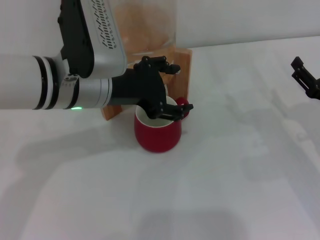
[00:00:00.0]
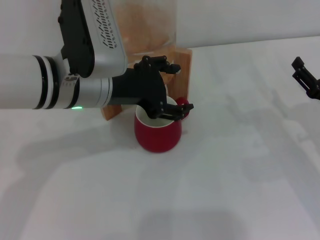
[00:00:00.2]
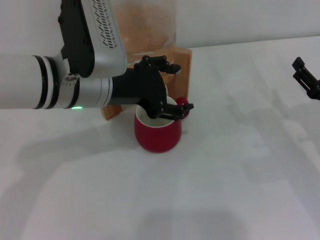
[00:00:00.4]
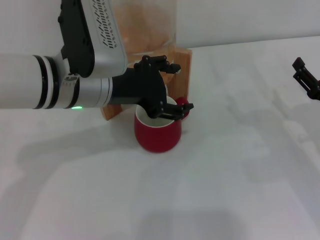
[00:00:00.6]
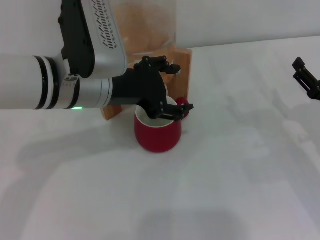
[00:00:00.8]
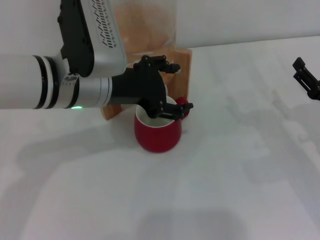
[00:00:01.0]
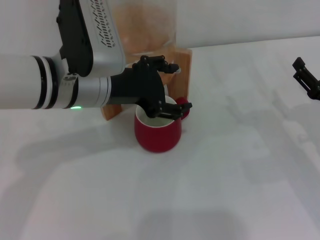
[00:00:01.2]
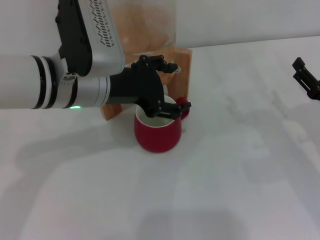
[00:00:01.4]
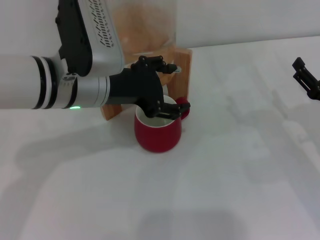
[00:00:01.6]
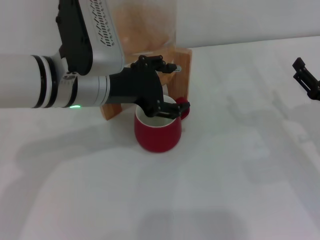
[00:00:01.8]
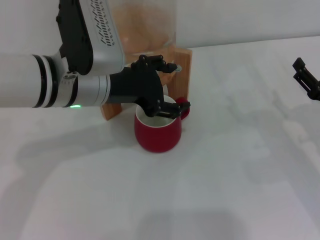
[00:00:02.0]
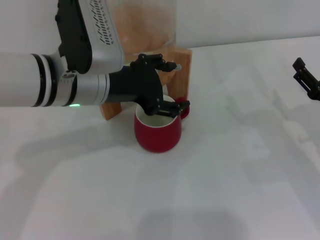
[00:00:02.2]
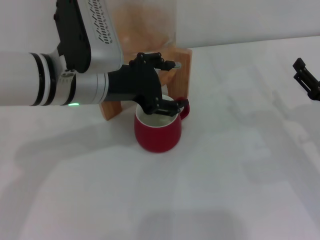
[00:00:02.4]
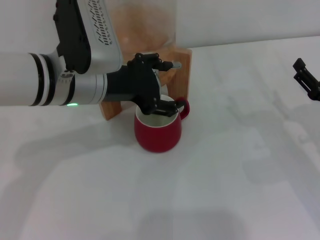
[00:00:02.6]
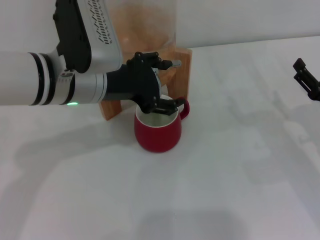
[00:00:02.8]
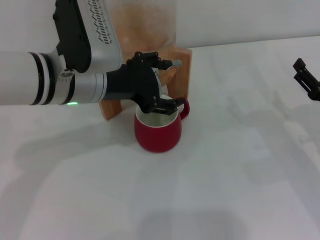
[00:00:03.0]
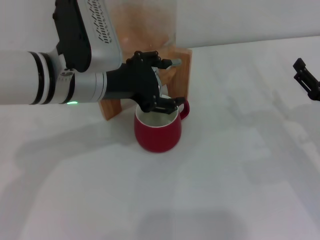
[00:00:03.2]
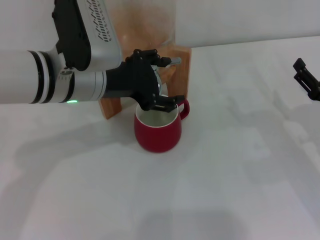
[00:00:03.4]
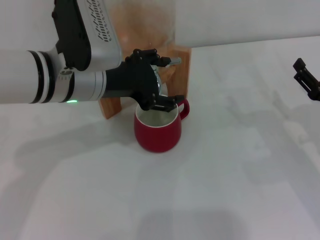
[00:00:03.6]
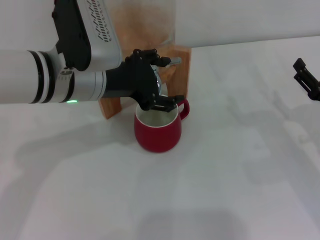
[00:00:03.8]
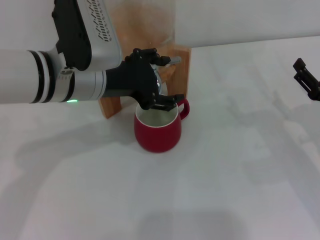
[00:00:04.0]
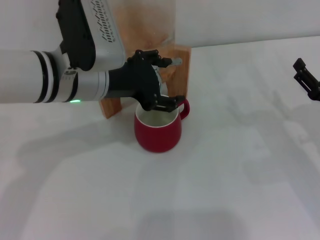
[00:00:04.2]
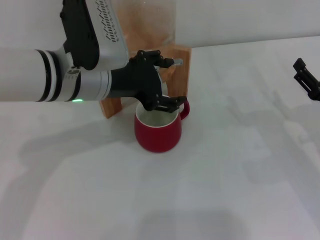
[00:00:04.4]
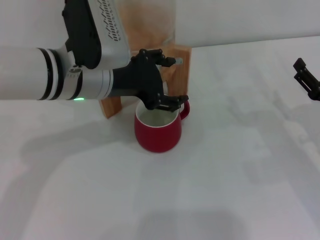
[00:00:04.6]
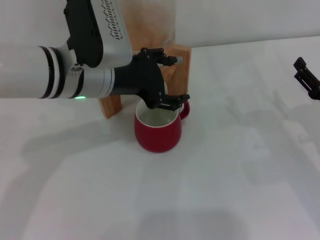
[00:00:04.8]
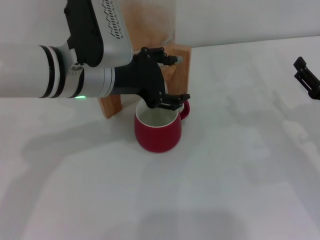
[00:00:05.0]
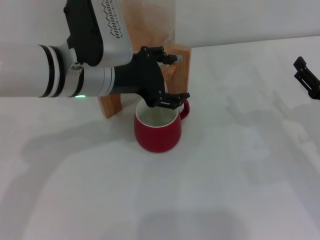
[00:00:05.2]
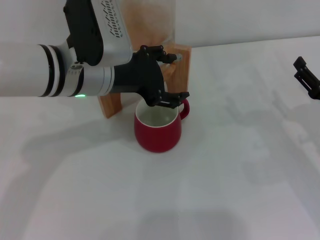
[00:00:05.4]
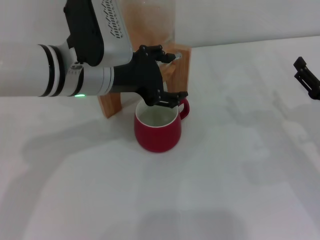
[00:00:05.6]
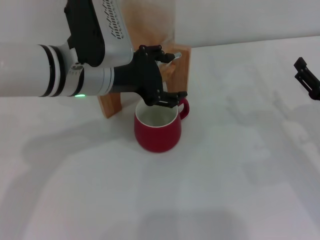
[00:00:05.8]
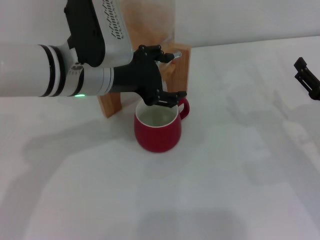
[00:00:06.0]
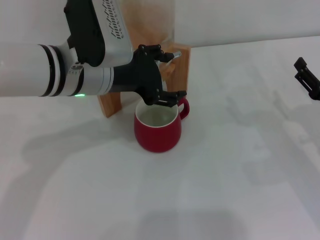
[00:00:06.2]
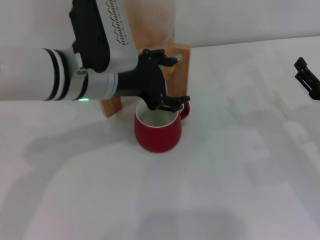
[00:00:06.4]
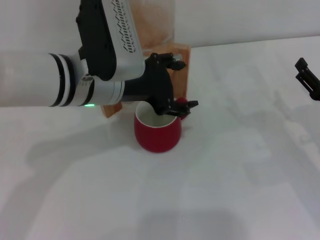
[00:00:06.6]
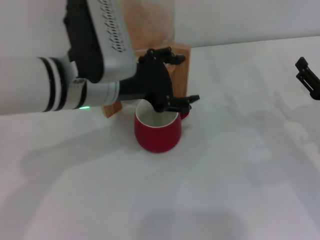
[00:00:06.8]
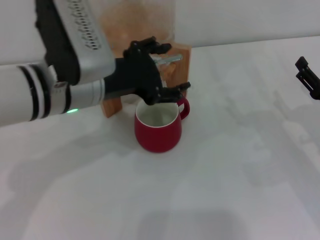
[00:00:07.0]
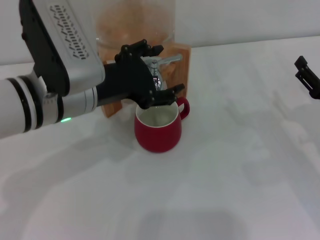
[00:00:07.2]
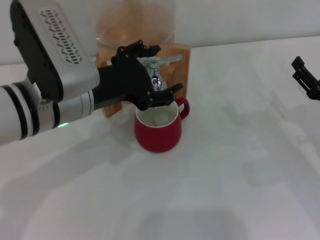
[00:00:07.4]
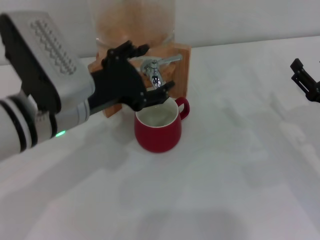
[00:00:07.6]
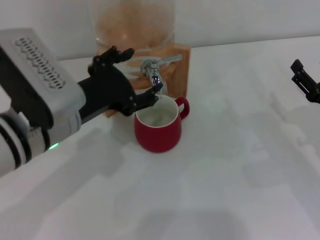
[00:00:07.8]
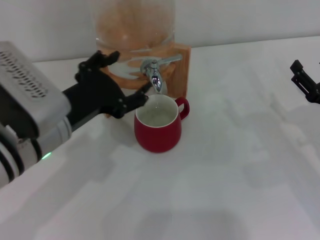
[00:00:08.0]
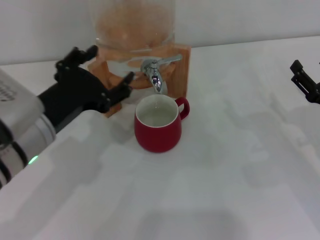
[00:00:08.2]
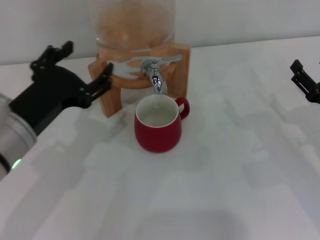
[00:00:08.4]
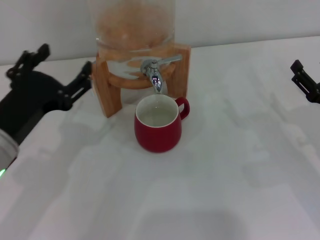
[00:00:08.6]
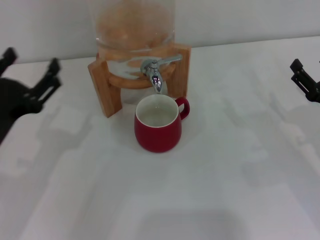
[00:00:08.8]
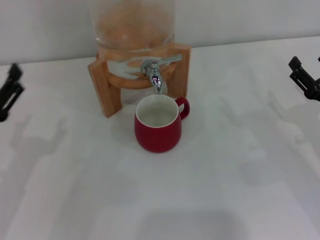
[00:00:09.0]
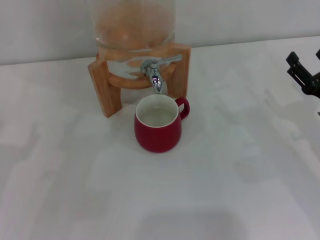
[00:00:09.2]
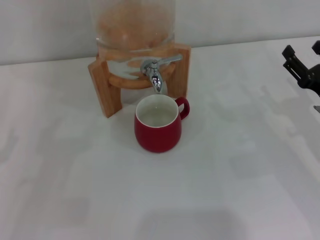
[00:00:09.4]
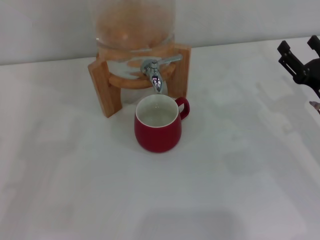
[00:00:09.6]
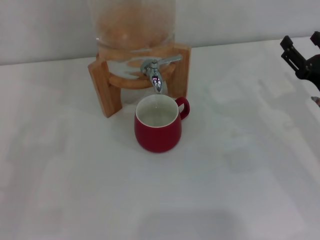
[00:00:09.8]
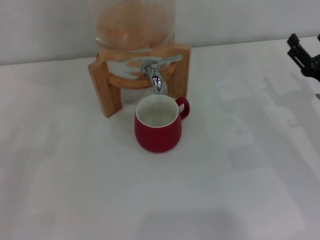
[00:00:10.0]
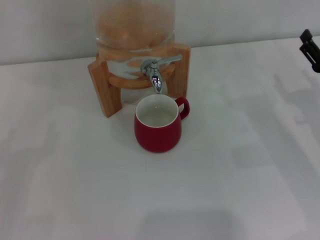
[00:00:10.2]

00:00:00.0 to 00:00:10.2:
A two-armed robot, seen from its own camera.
Task of the whole recording: the right gripper pick up the red cup and place it horizontally under the faucet, the left gripper turn on the faucet to fill the cup, and then turn off the faucet.
Step, 00:00:00.0 to 00:00:07.0: Close the dispenser valve with the left gripper.
00:00:00.0 to 00:00:04.4: Both grippers stay about where they are.
00:00:04.4 to 00:00:05.8: Neither gripper changes place.
00:00:05.8 to 00:00:07.2: The grippers make only small movements.
00:00:07.2 to 00:00:08.8: The left gripper goes some 15 cm to the left, backward and downward.
00:00:08.8 to 00:00:10.2: The left gripper shifts about 15 cm to the left and downward.

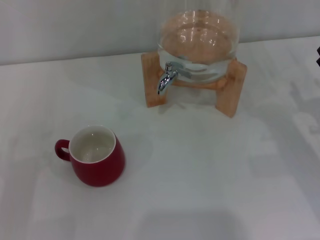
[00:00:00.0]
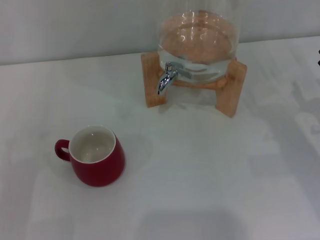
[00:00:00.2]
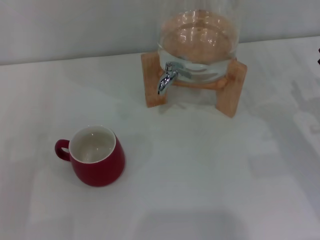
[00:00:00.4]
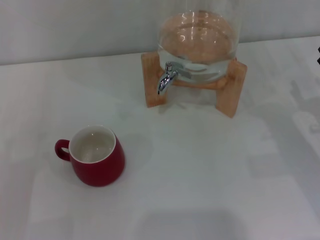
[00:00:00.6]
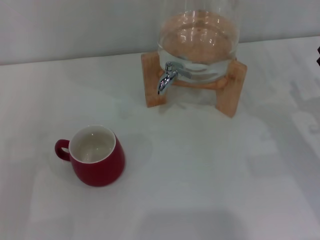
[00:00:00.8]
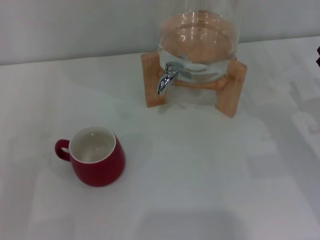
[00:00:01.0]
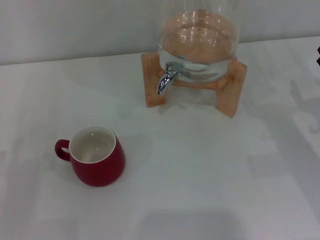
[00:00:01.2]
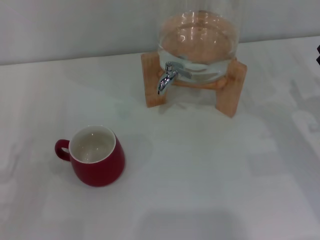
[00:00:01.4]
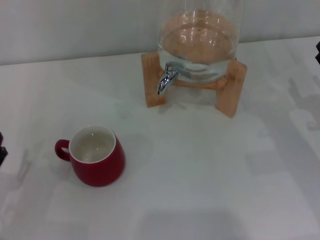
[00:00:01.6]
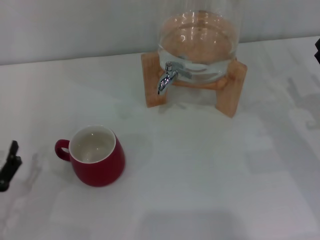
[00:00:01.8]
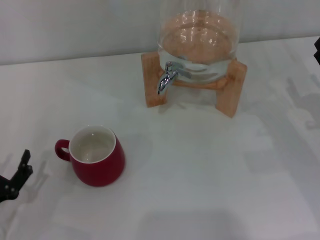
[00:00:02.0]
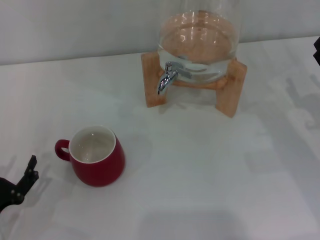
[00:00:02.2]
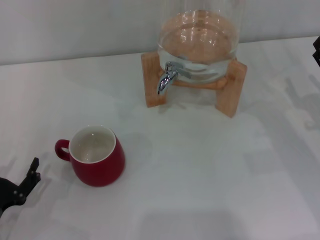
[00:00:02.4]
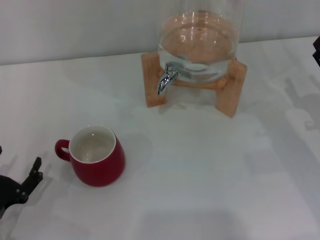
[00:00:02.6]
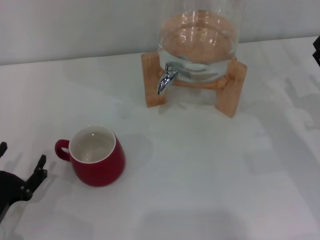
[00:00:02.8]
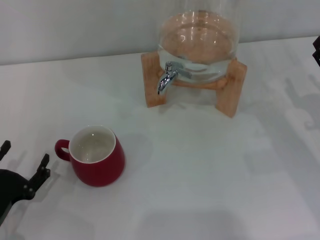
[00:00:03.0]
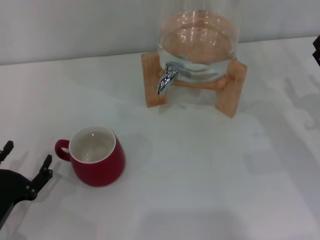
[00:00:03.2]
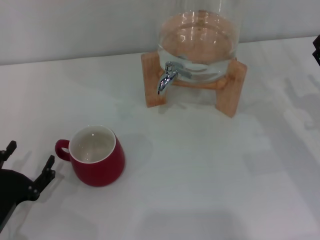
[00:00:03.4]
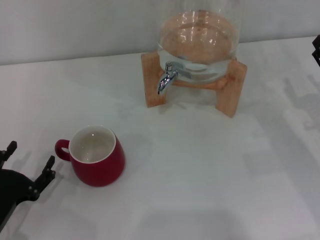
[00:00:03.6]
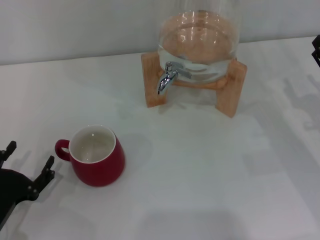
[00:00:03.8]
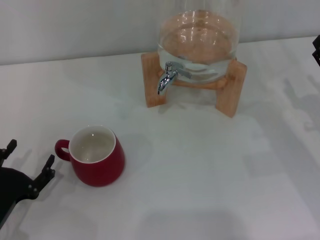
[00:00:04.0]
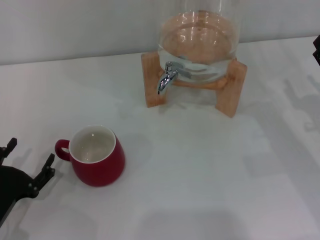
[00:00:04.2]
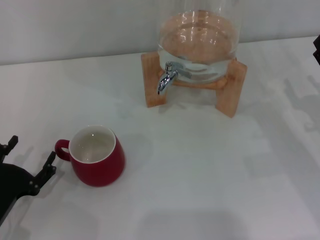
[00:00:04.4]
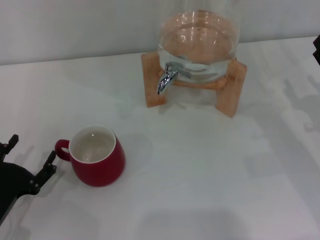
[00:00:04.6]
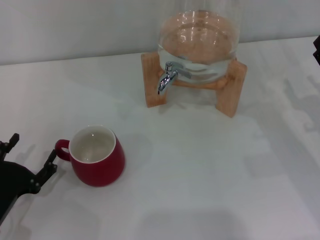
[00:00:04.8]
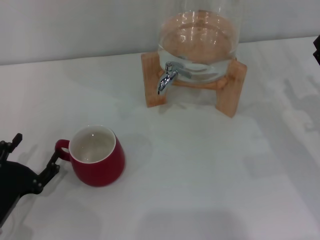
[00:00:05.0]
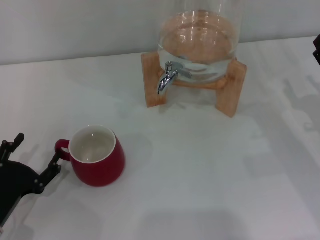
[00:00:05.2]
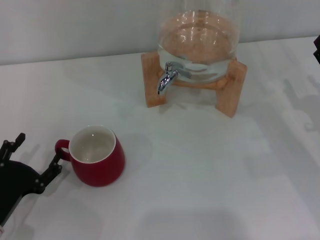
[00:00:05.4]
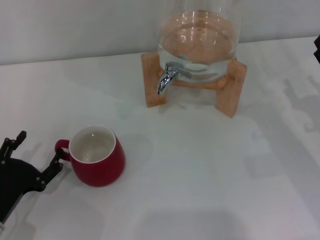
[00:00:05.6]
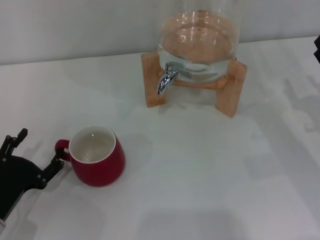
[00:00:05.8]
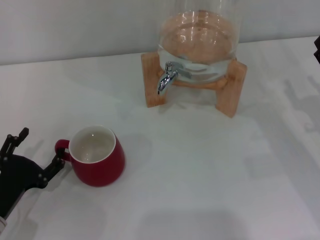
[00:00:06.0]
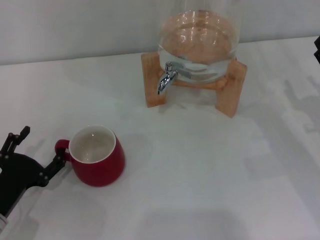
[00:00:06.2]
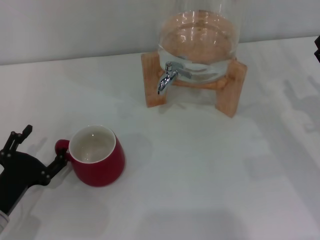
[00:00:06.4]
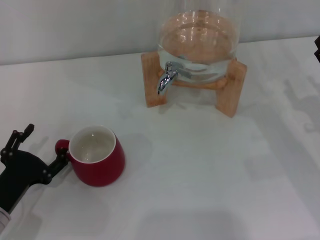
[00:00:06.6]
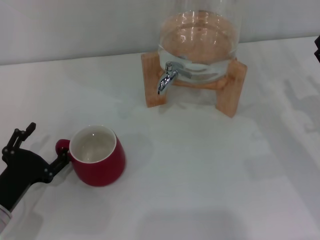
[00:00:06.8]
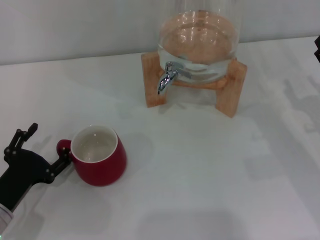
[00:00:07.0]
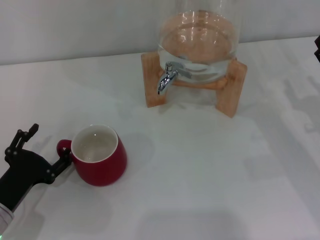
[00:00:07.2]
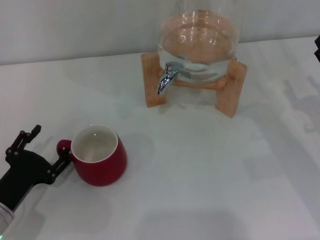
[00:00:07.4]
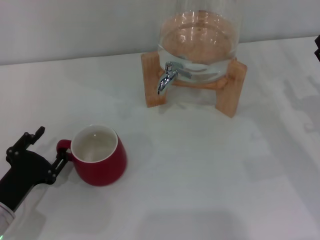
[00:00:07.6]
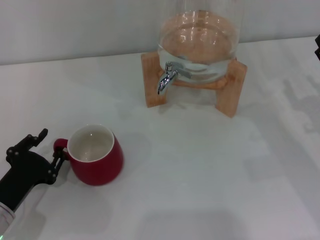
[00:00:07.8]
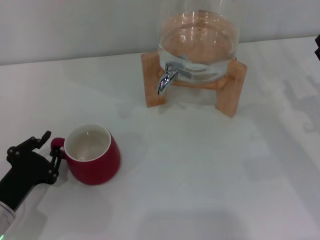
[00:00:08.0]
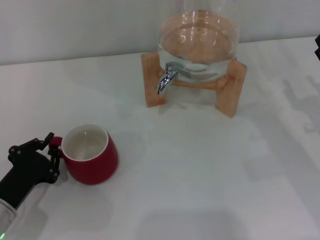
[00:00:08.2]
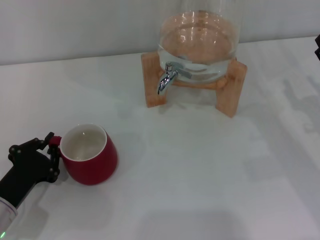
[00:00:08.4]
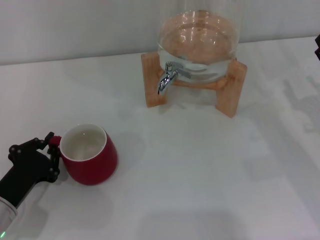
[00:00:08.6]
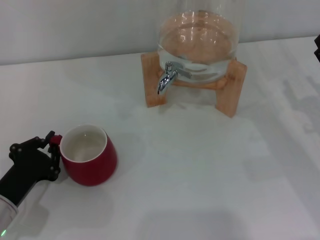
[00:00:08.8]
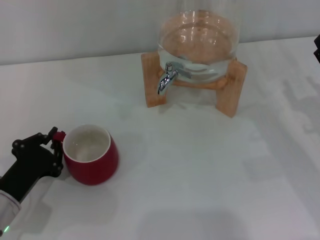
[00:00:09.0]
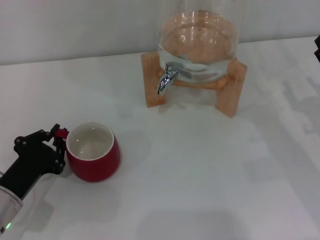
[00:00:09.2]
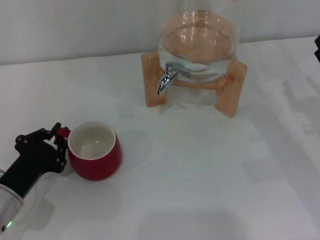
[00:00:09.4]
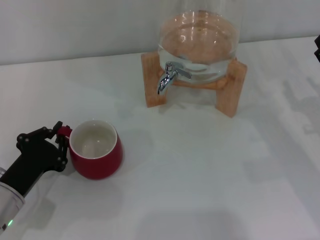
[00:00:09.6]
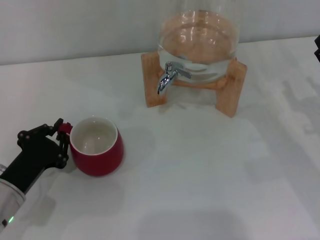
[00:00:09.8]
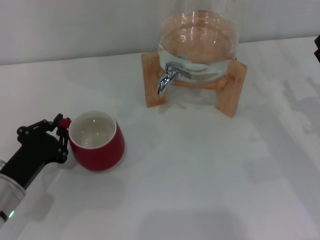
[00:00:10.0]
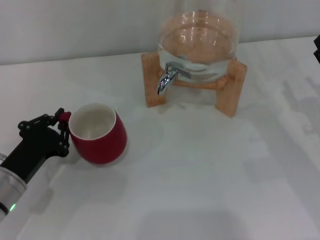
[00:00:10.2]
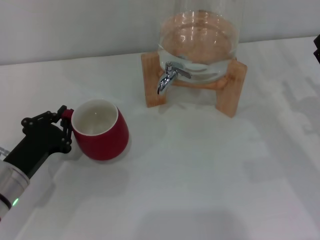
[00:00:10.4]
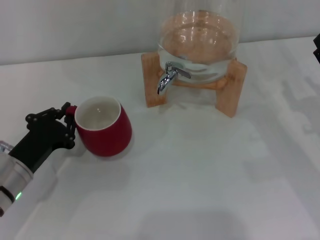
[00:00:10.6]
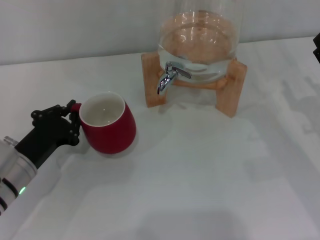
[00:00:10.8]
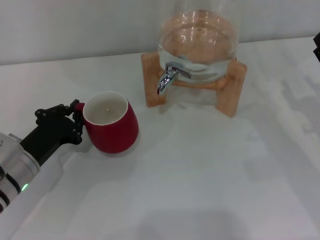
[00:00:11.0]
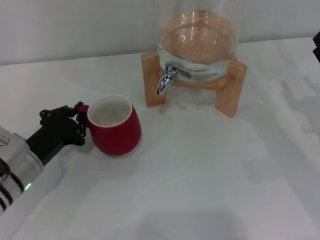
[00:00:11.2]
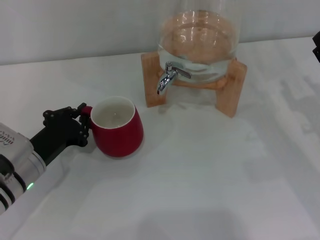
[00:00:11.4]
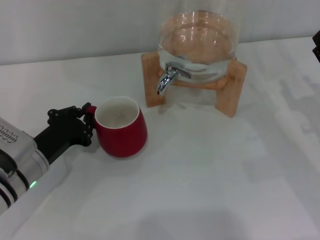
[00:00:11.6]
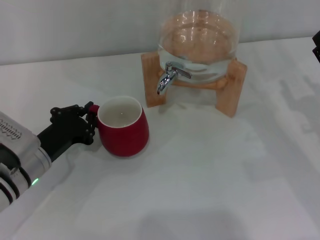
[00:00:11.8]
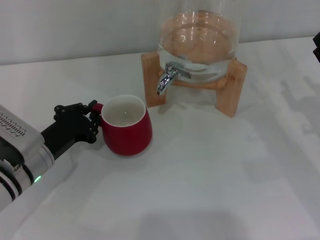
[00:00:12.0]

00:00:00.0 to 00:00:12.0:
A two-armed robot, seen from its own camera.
Task of the whole recording: the left gripper pick up the red cup and place it horizontally under the faucet, the right gripper turn on the faucet to fill the cup, and then turn off the faucet.
00:00:01.6 to 00:00:03.0: The grippers move only a little.
00:00:03.0 to 00:00:04.4: Both grippers stay about where they are.
00:00:04.4 to 00:00:07.6: The grippers make only small movements.
00:00:07.6 to 00:00:09.0: The left gripper closes up.
00:00:09.0 to 00:00:10.4: The grippers make only small movements.
00:00:10.4 to 00:00:12.0: The grippers make only small movements.
